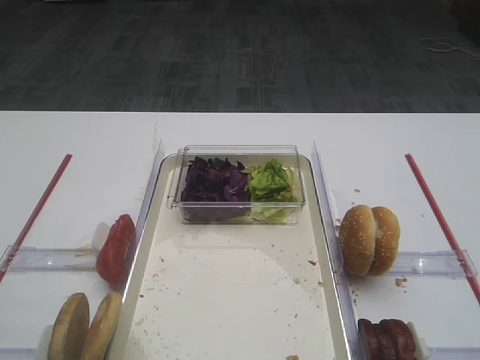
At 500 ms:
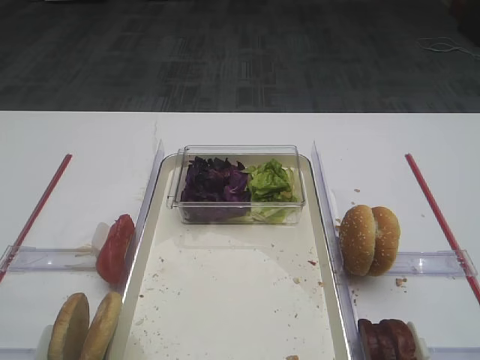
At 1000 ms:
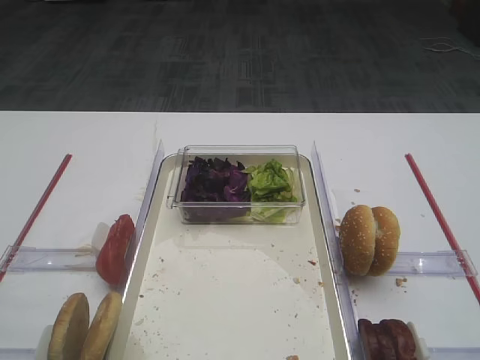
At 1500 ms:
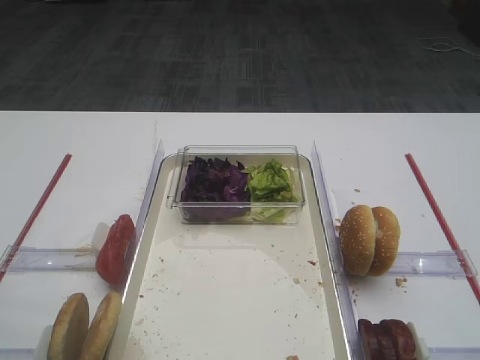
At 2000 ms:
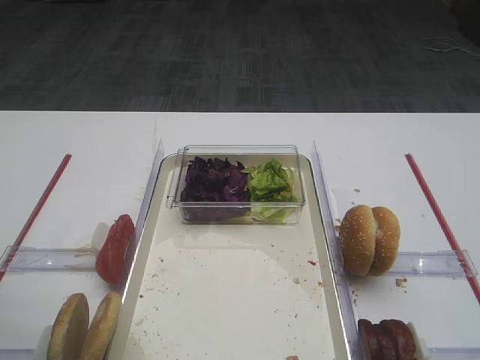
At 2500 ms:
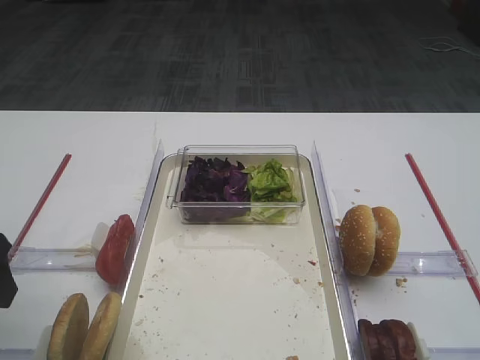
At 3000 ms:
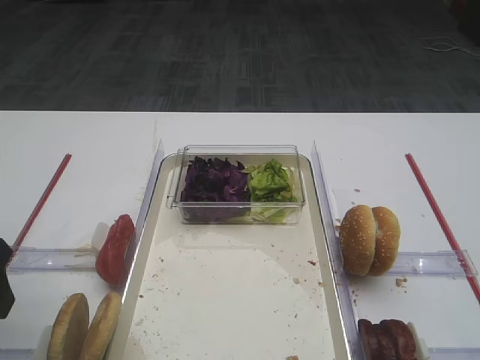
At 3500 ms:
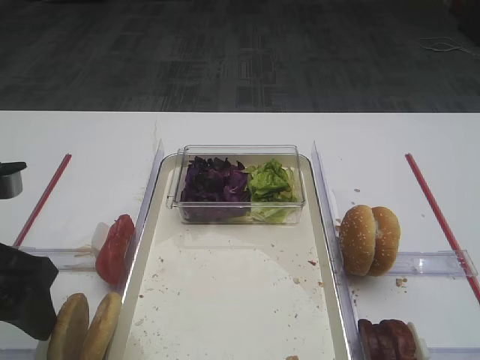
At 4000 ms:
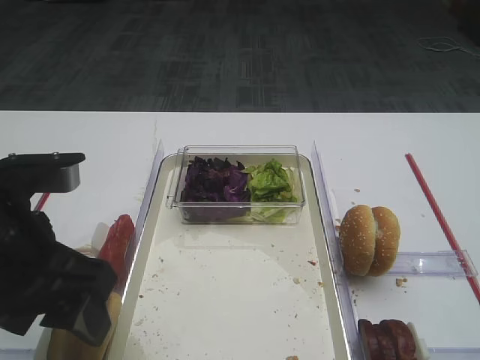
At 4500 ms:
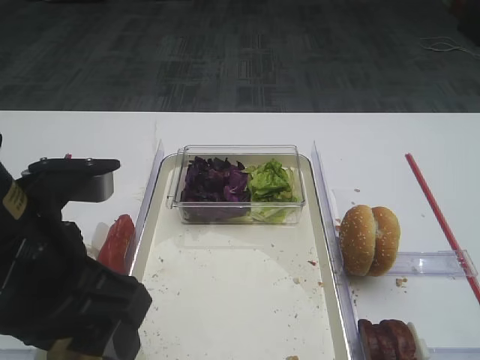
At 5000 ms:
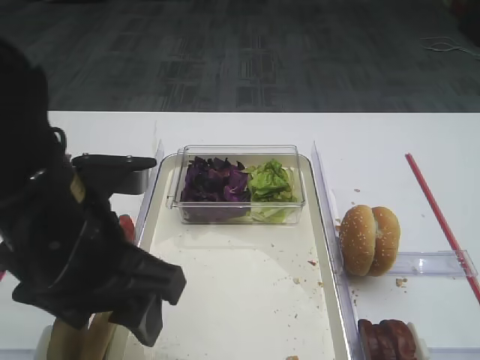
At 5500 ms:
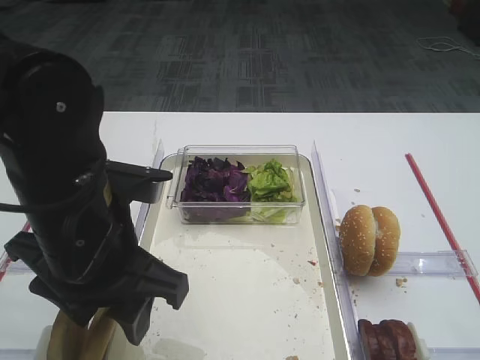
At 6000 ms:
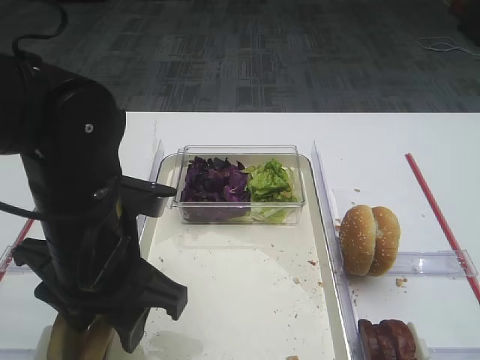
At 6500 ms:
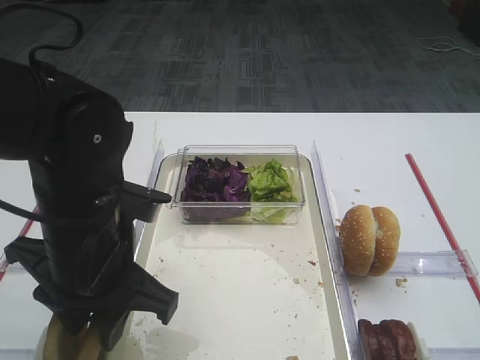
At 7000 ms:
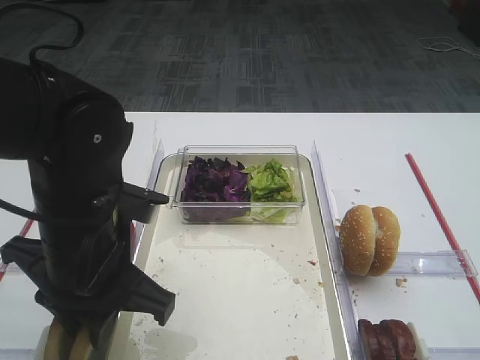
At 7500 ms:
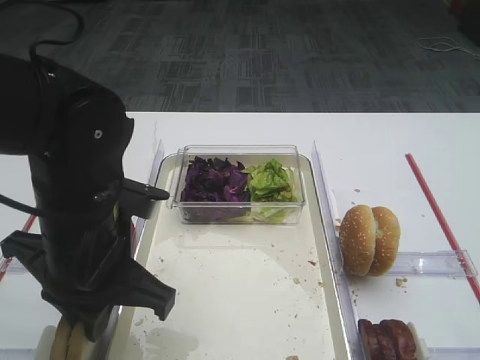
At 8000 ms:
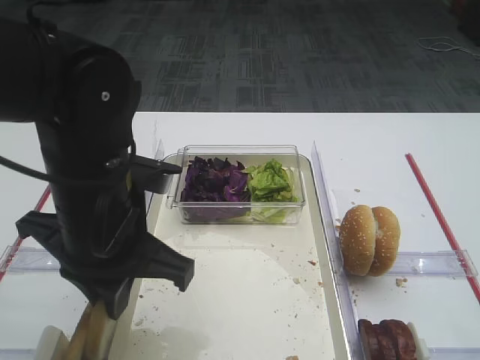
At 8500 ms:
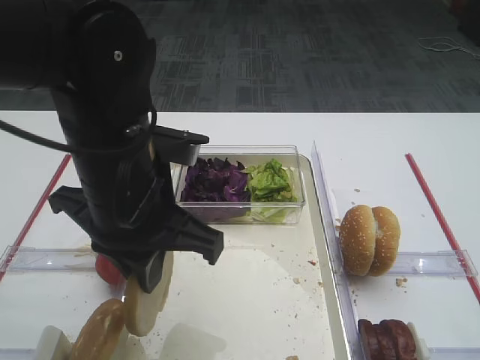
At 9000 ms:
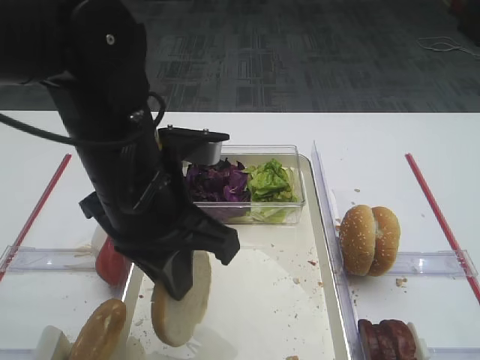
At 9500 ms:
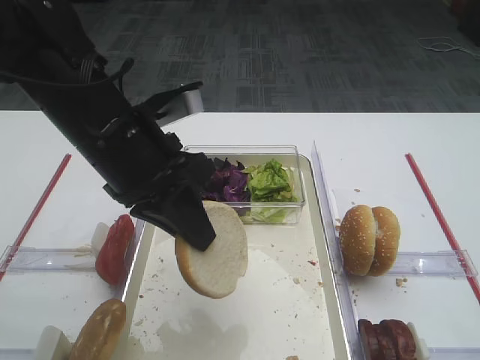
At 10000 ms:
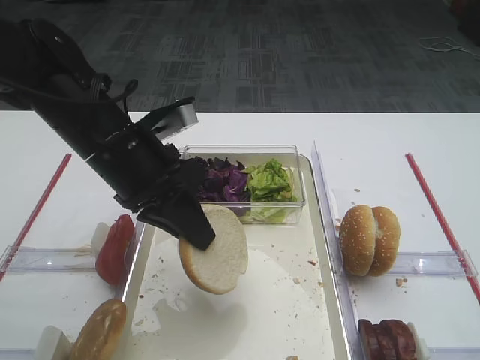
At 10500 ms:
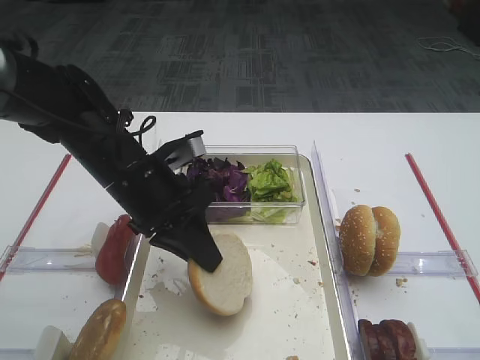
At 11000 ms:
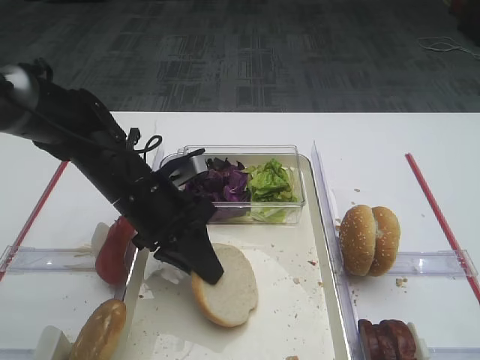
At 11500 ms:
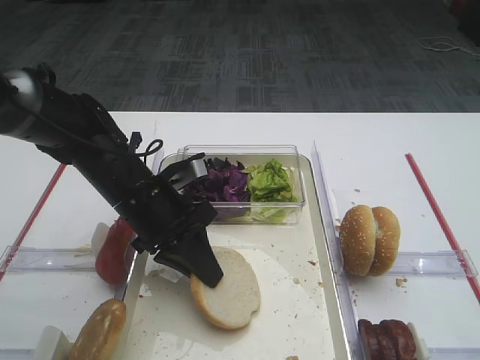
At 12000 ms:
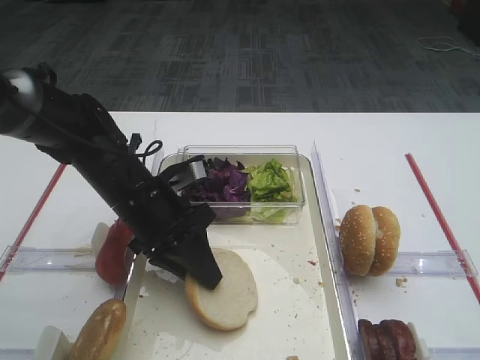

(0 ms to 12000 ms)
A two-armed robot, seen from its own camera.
Step, 0 ms - 7500 ms: Pick up the bread slice with the left gripper.
2000 ms - 4000 ms: The left gripper travels to the right by about 10 cm.
4000 ms - 6000 ms: The left gripper travels to the right by about 5 cm.
6000 ms - 8000 ms: The left gripper closes.
8000 ms - 10000 ms: The left gripper is displaced forward by approximately 5 cm.
10000 ms - 12000 ms: The left gripper travels downward by roughly 10 cm.

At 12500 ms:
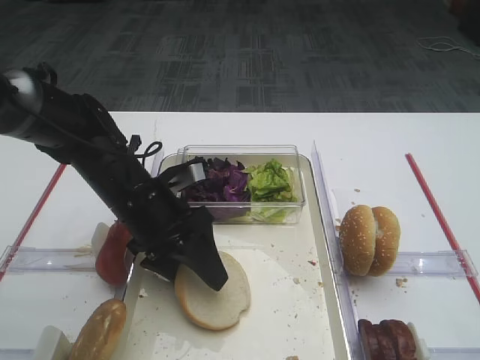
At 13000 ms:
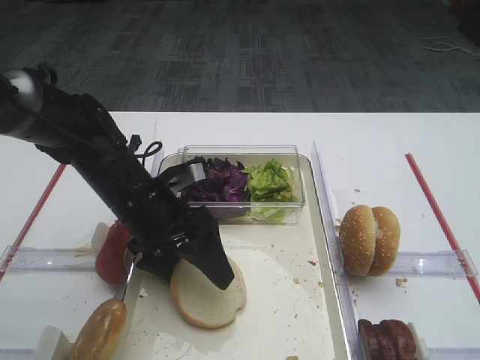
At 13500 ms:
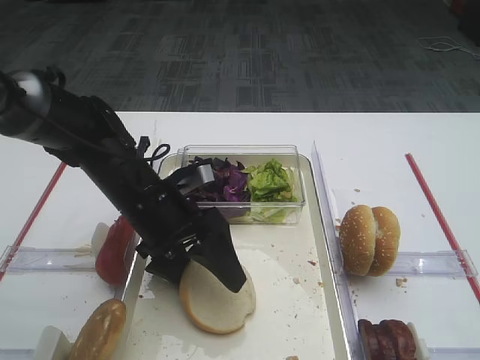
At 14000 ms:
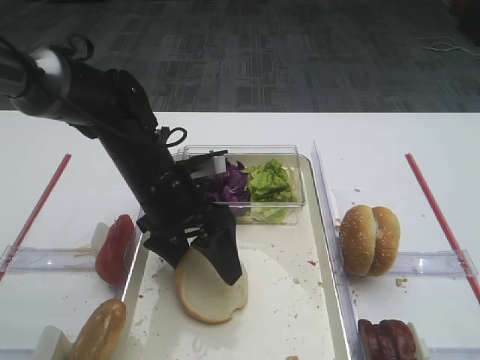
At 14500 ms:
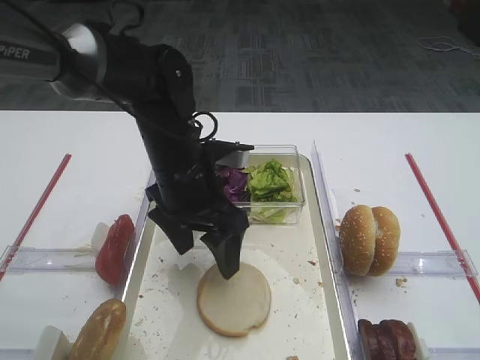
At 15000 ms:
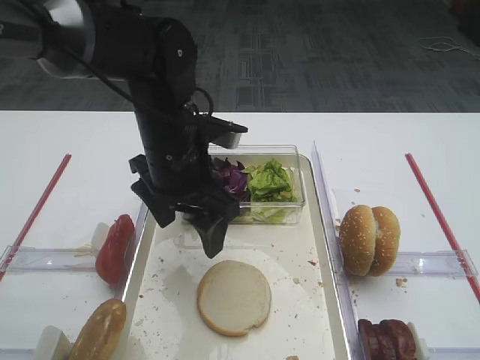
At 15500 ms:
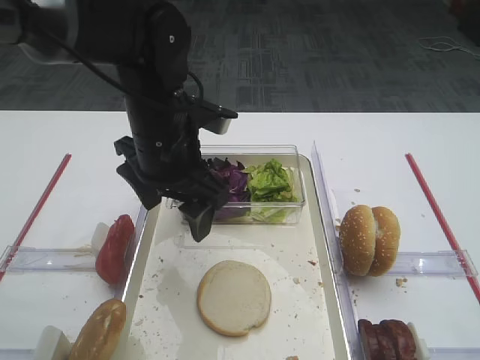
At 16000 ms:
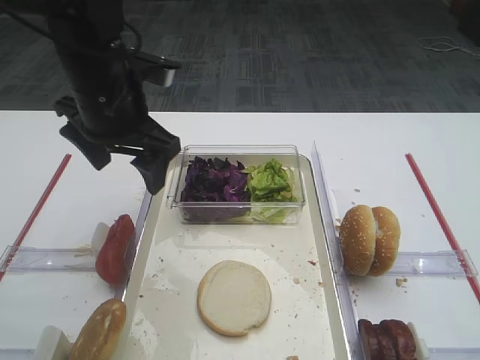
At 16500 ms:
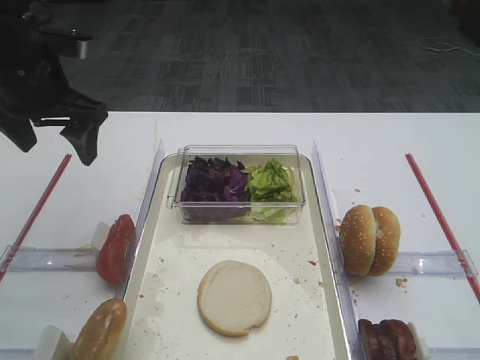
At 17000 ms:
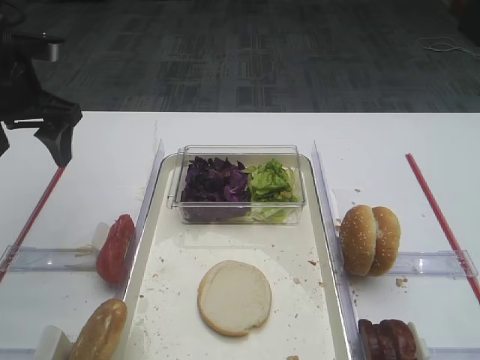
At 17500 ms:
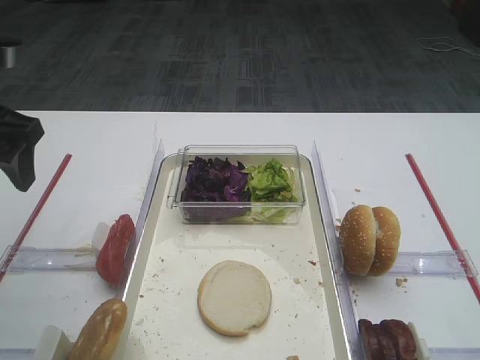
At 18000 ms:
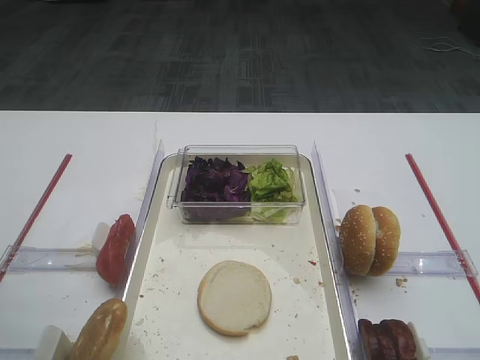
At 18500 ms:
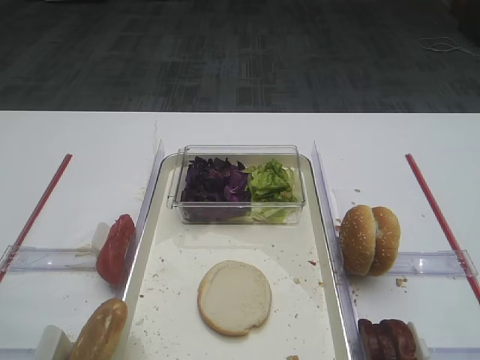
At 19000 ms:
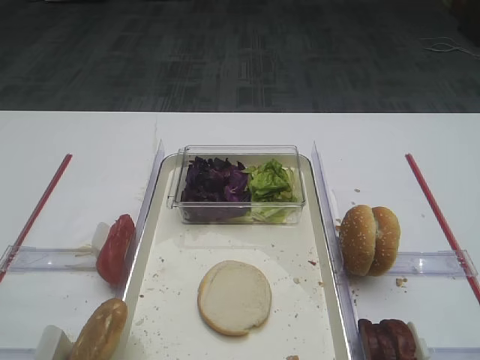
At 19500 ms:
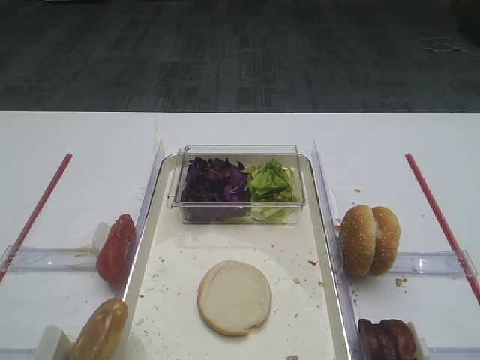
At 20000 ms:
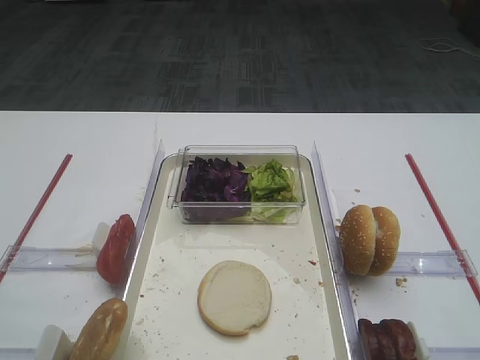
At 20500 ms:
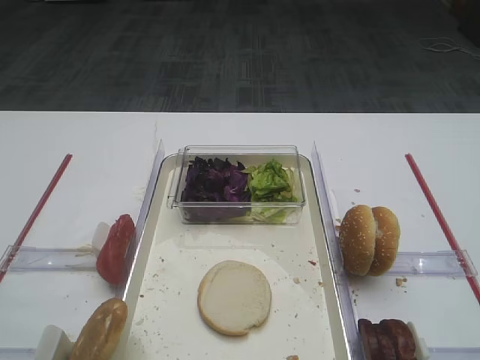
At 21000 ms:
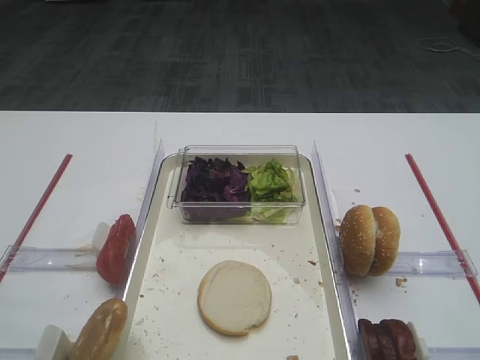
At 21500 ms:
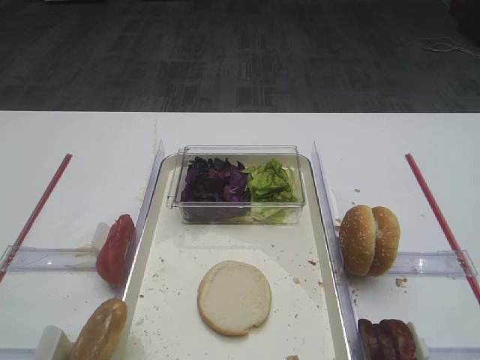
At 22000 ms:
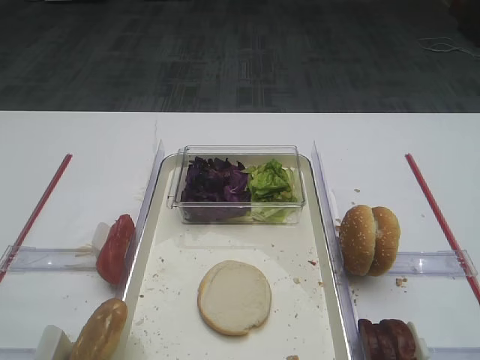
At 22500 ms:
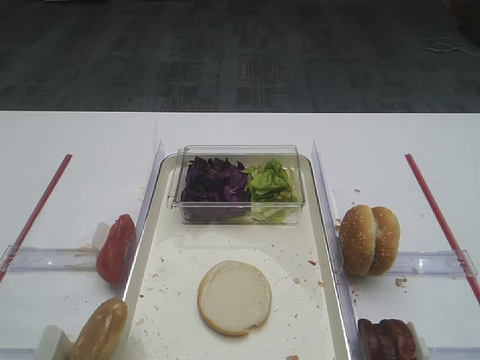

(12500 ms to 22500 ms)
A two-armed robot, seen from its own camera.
12500 ms - 14500 ms: The left gripper ends up some 5 cm from where it was.
14500 ms - 16500 ms: The left gripper goes approximately 20 cm to the left and upward.
16500 ms - 18500 ms: The left gripper heads backward, covering about 30 cm.
20500 ms - 22500 ms: Both grippers stay put.

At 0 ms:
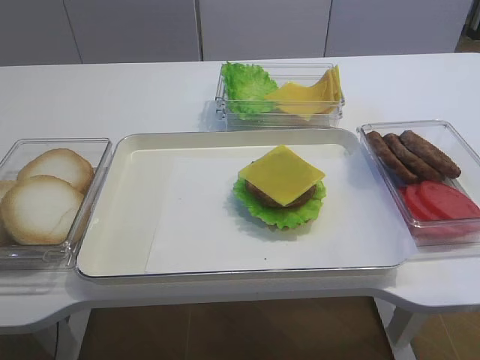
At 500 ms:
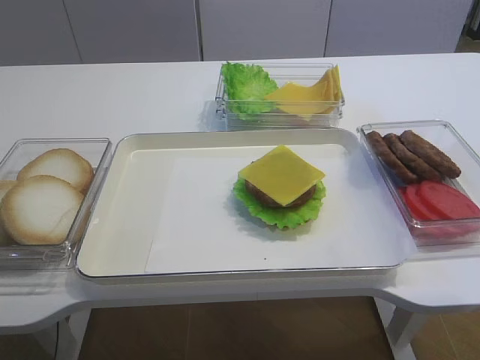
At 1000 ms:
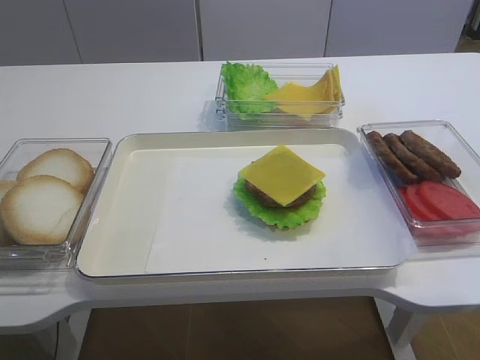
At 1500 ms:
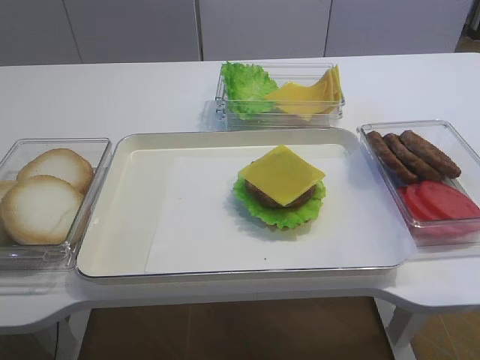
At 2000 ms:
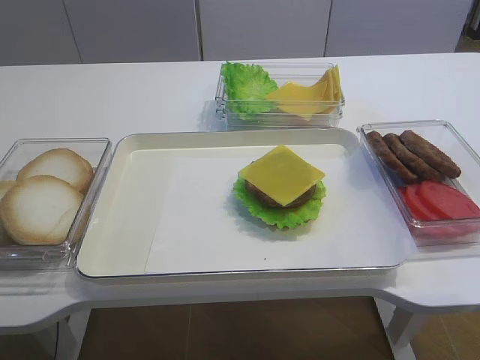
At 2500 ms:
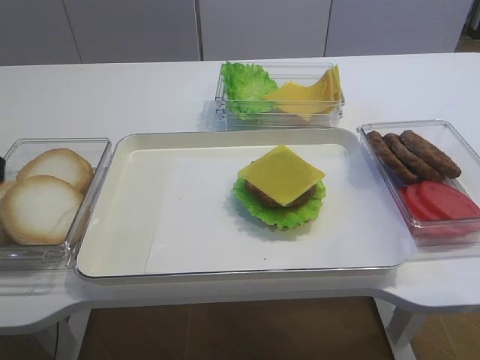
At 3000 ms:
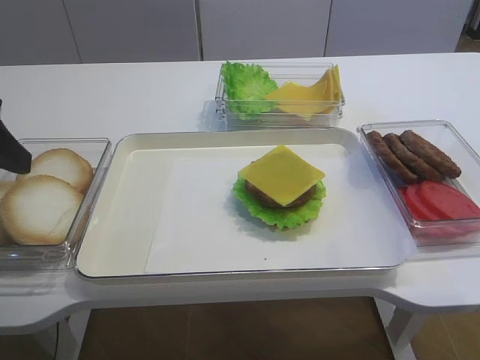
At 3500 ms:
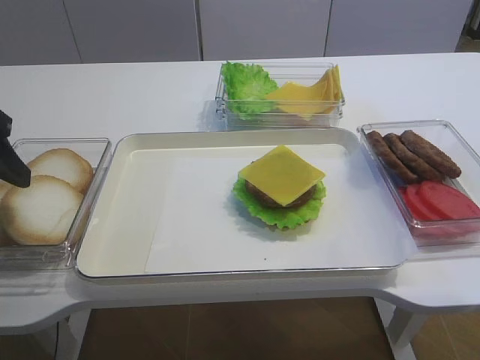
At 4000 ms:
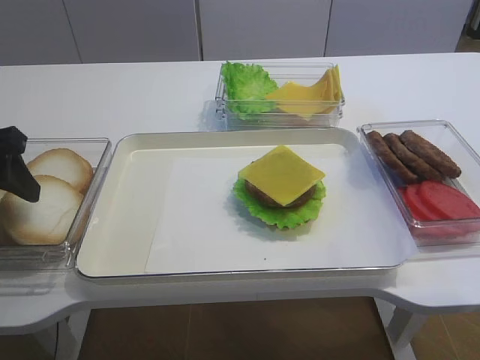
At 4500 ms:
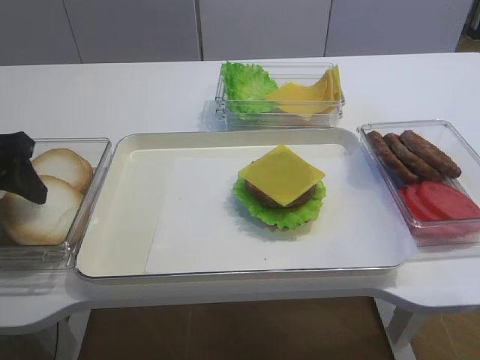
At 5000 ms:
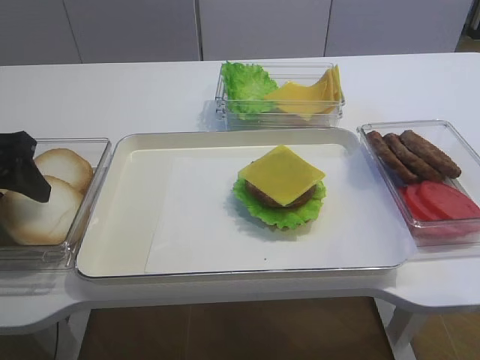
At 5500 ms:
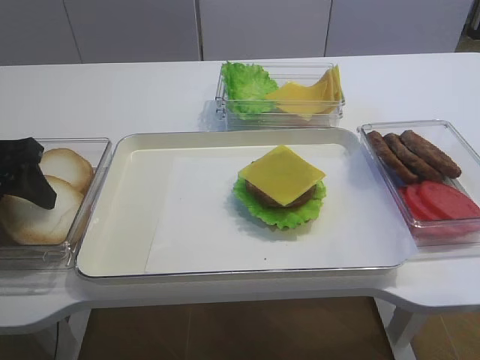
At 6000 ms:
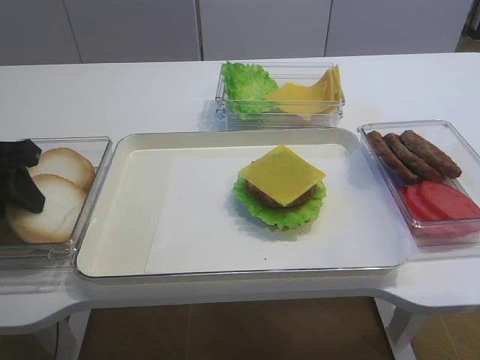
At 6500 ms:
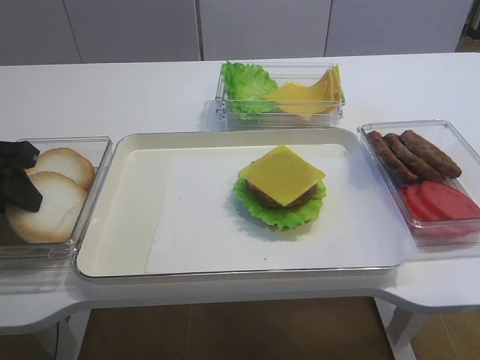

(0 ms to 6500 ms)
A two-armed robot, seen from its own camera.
2000 ms - 4500 ms: The left gripper moves forward, about 20 cm.
4500 ms - 6500 ms: The left gripper closes.
